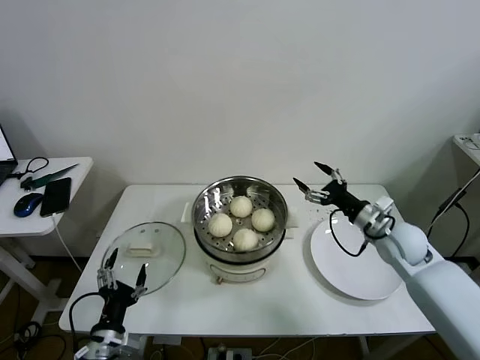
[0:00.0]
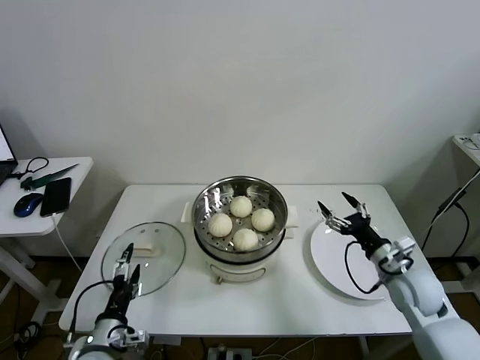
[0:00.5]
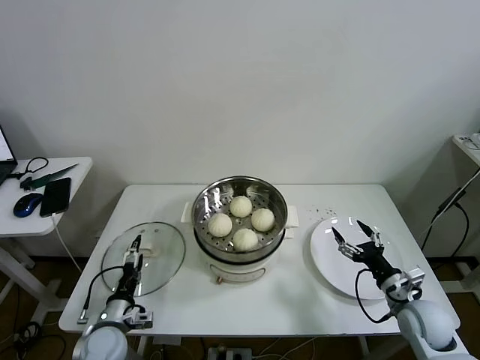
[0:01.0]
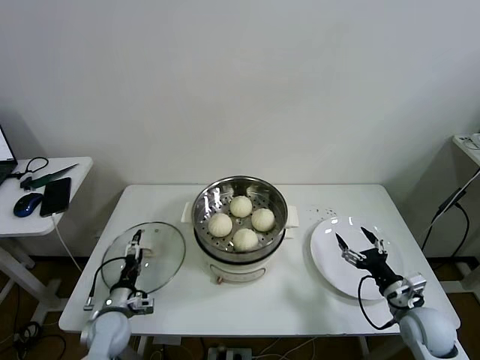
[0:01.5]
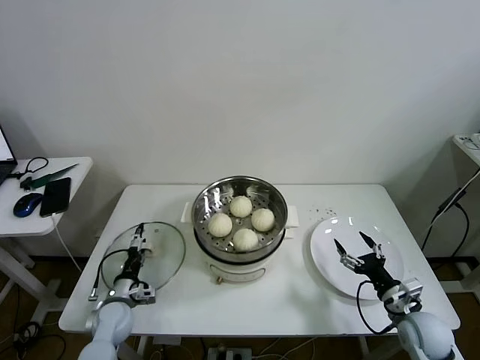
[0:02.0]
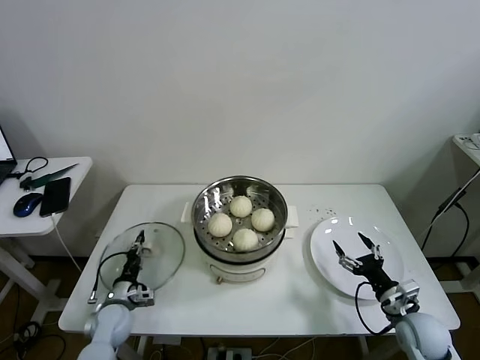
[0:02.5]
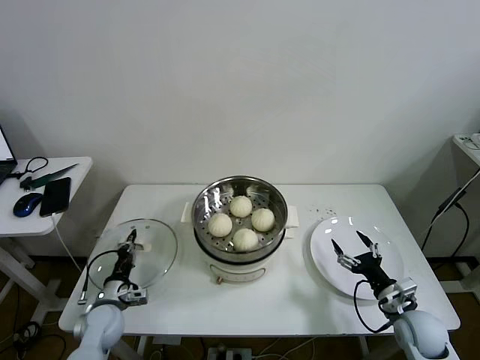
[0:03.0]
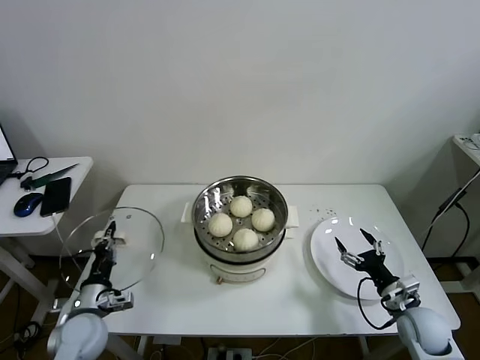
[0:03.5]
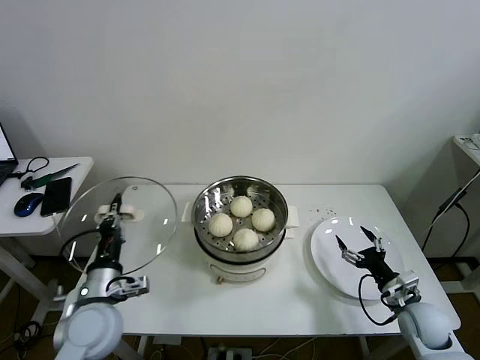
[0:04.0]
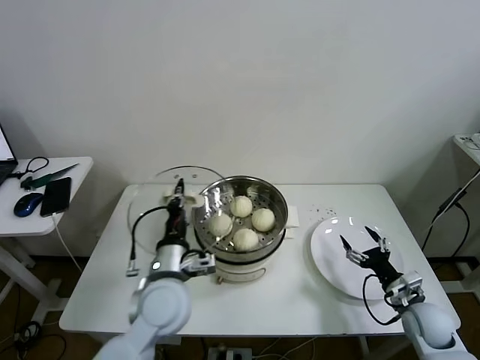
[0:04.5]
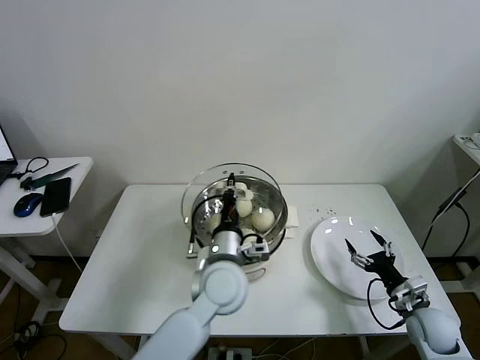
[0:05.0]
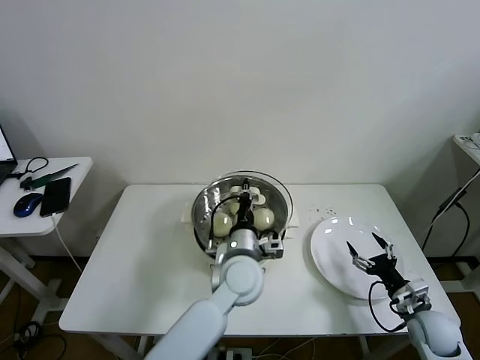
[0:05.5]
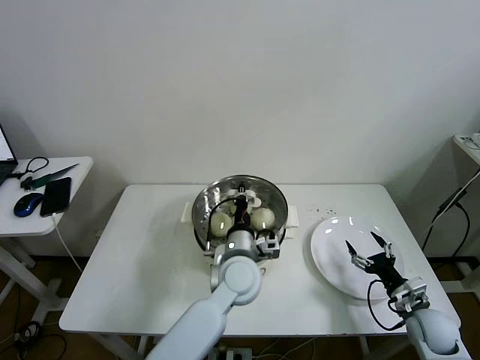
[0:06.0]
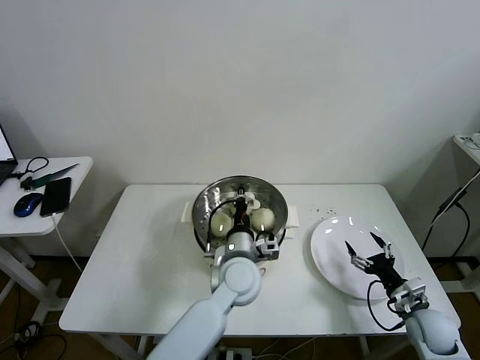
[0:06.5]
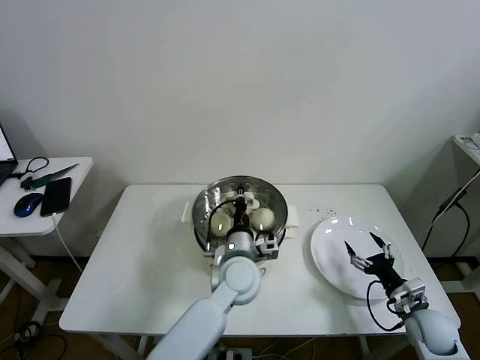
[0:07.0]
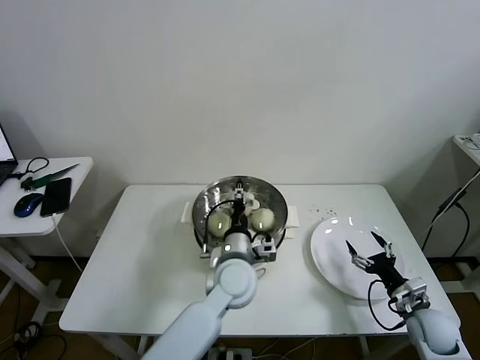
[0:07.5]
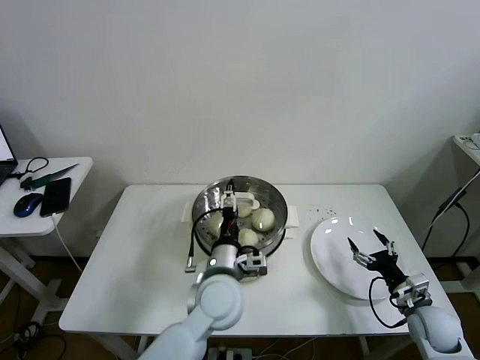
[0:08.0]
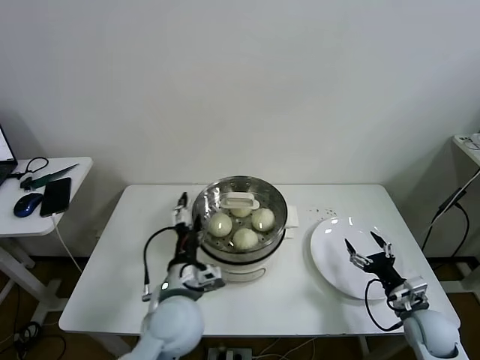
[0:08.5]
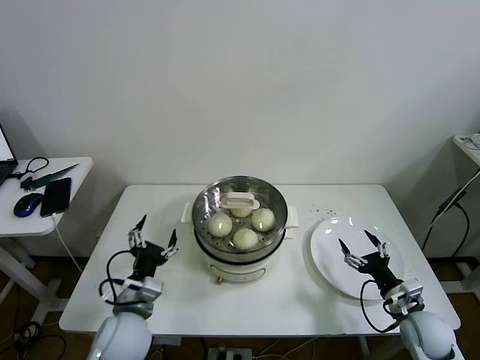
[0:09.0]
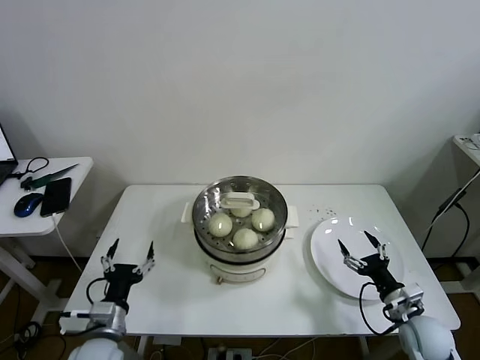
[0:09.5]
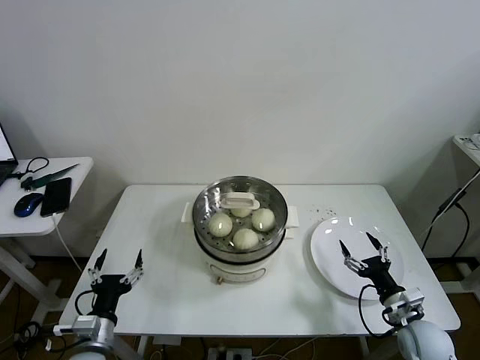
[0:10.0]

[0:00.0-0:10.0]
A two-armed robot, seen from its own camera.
Task of the whole recording: take steamed baozi put them in steamer then cover it.
Step, 0:00.0 to 0:02.5: Grasp the pot lid with left gripper.
Step, 0:03.0 to 0:07.0: Place the pot lid on the steamer with left gripper.
0:00.0 to 0:02.0: The left gripper heads forward and downward, covering some 20 cm. Meanwhile the right gripper is displaced backward and downward by about 20 cm.
0:02.0 to 0:04.0: The left gripper travels upward by about 20 cm, and closes its fingers.
0:04.0 to 0:06.0: The left gripper heads to the right, covering roughly 30 cm.
0:06.0 to 0:08.0: The left gripper shifts by some 5 cm, and opens.
0:08.0 to 0:10.0: The left gripper travels to the left and backward by roughly 30 cm.
